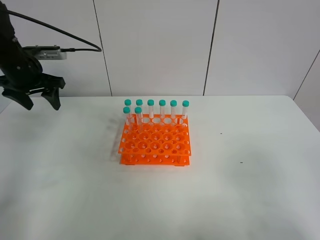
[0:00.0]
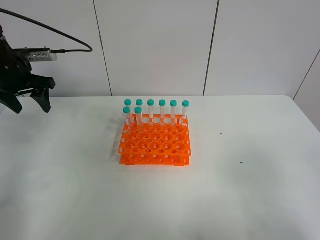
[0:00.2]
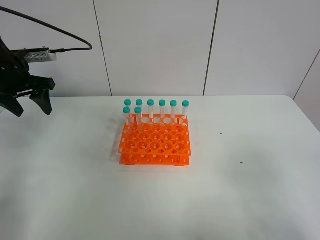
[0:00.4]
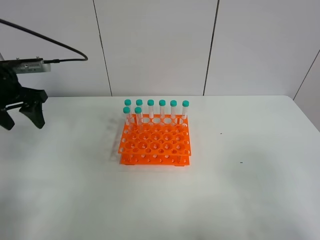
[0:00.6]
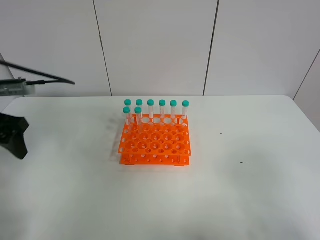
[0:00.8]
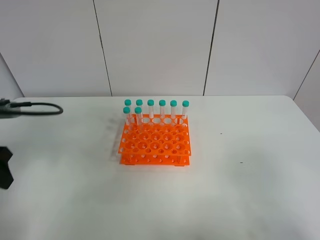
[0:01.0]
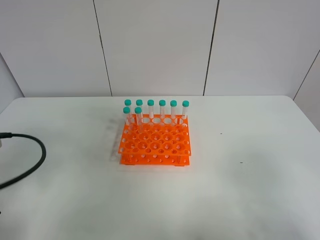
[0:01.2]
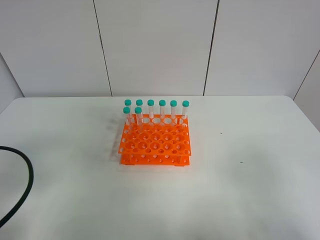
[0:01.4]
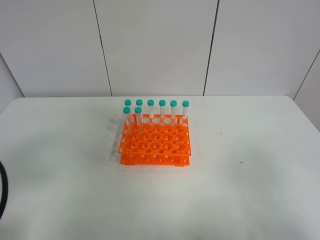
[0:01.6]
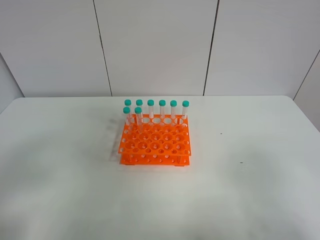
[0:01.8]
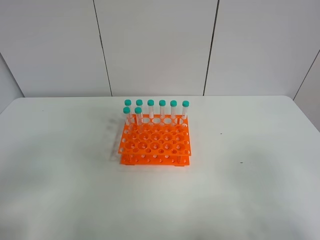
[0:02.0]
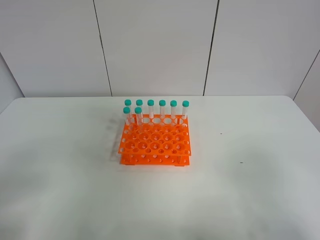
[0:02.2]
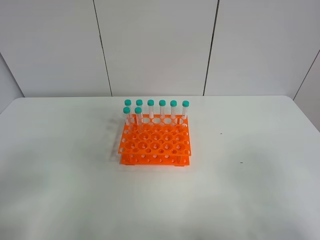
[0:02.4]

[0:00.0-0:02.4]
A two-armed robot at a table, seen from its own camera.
Task of the whole recording: Put the test tube on the table back onto the test tube rack.
0:00.0 to 0:01.2: The left gripper goes some 30 cm backward.
0:01.2 to 0:02.4: The left gripper goes about 10 cm backward.

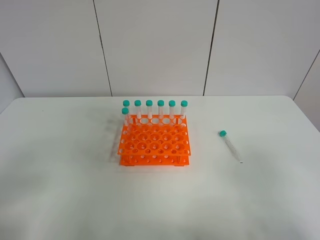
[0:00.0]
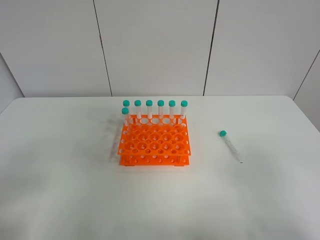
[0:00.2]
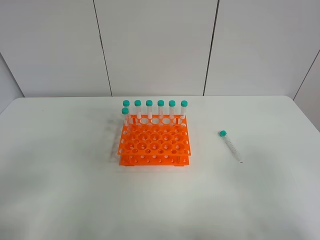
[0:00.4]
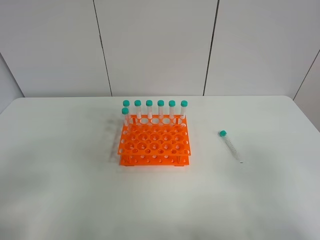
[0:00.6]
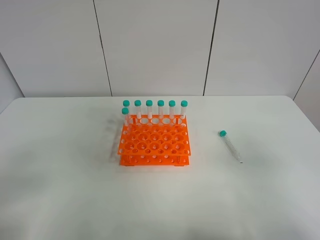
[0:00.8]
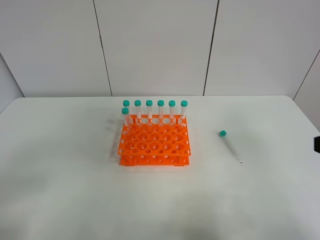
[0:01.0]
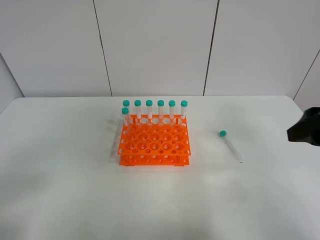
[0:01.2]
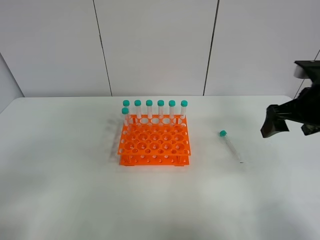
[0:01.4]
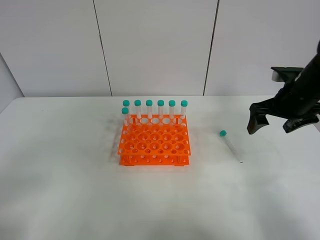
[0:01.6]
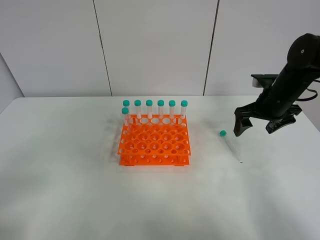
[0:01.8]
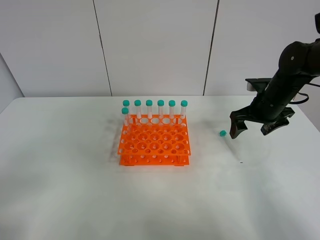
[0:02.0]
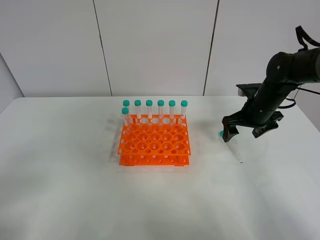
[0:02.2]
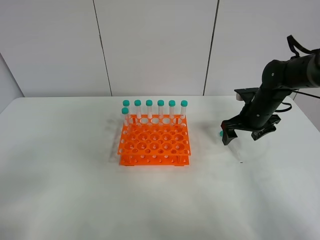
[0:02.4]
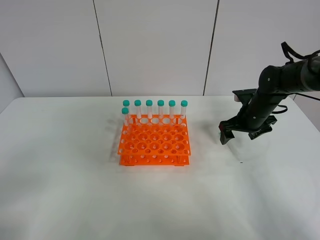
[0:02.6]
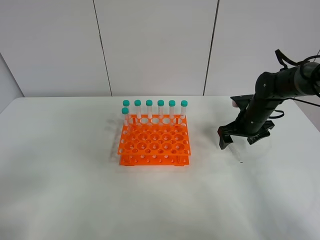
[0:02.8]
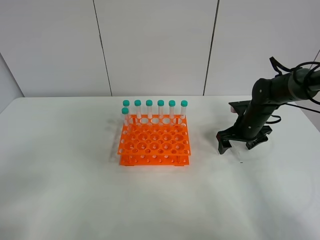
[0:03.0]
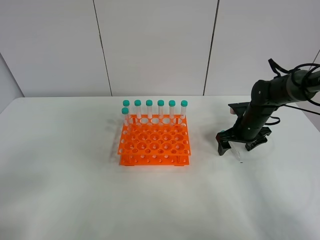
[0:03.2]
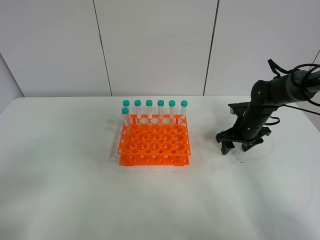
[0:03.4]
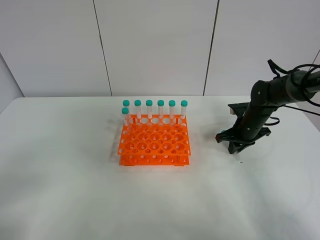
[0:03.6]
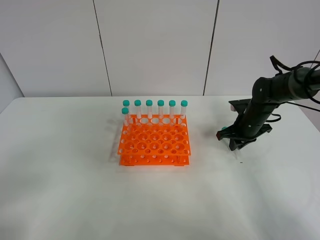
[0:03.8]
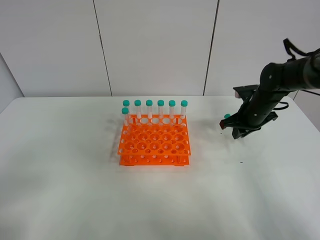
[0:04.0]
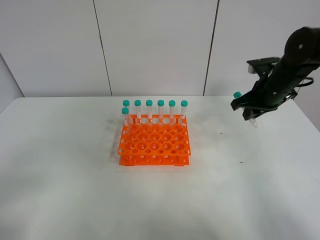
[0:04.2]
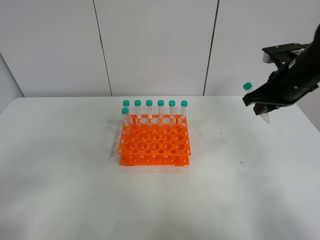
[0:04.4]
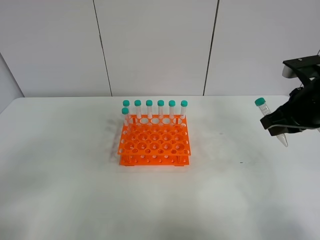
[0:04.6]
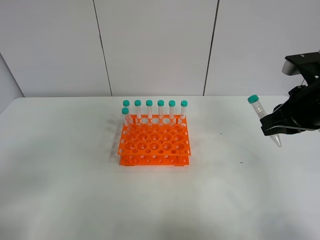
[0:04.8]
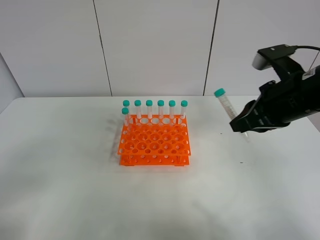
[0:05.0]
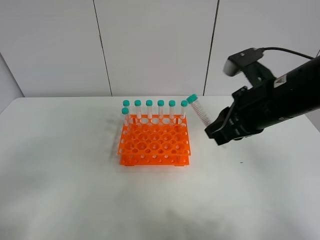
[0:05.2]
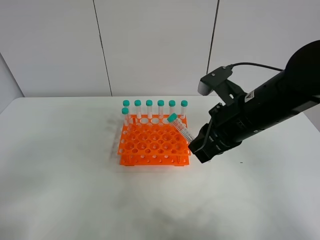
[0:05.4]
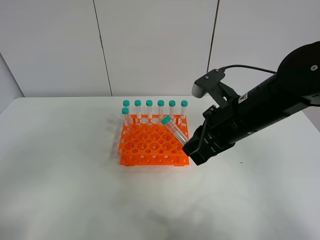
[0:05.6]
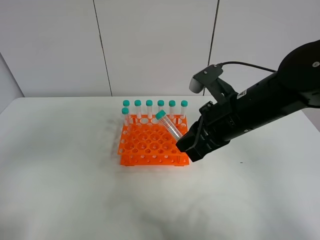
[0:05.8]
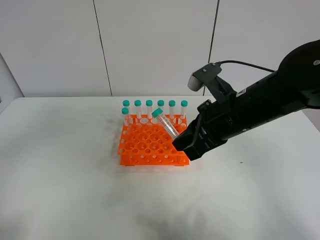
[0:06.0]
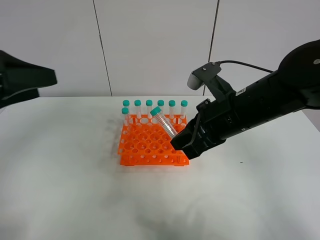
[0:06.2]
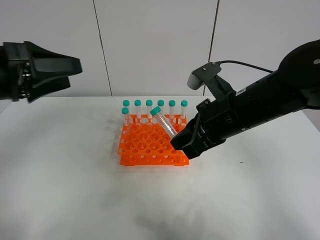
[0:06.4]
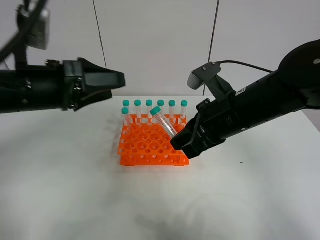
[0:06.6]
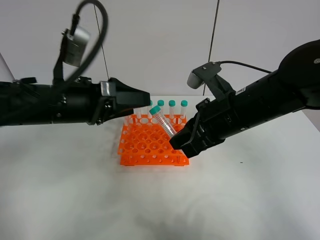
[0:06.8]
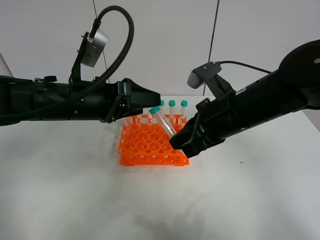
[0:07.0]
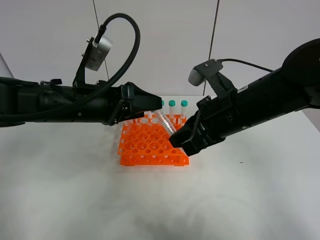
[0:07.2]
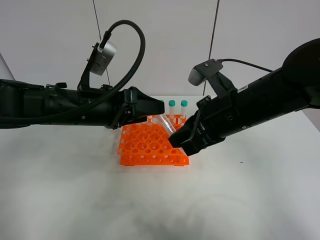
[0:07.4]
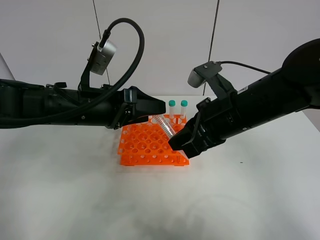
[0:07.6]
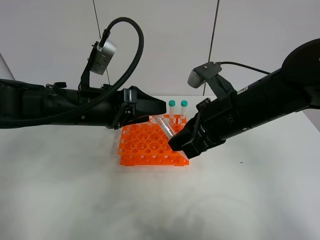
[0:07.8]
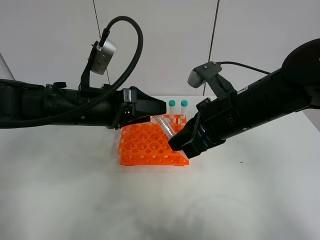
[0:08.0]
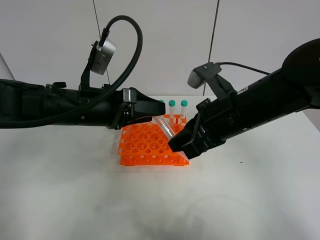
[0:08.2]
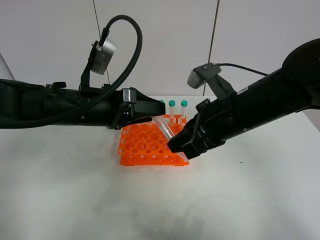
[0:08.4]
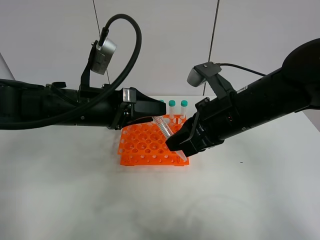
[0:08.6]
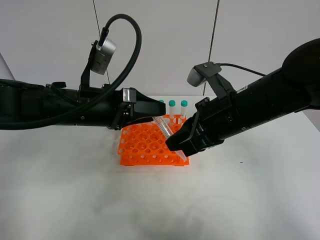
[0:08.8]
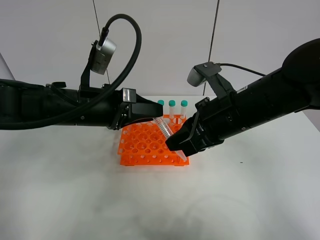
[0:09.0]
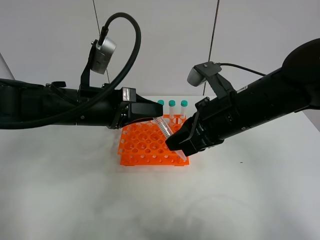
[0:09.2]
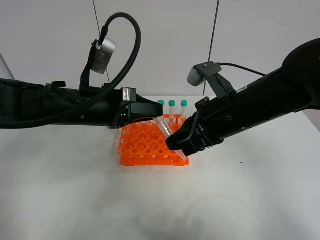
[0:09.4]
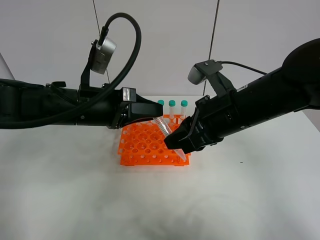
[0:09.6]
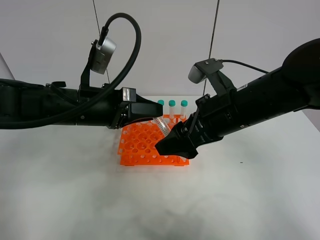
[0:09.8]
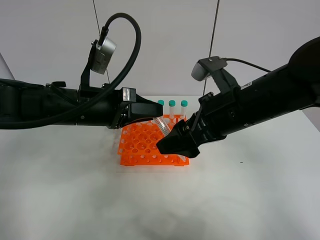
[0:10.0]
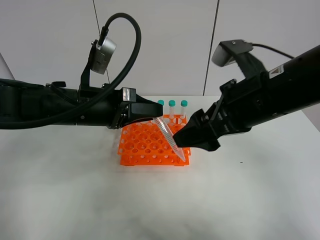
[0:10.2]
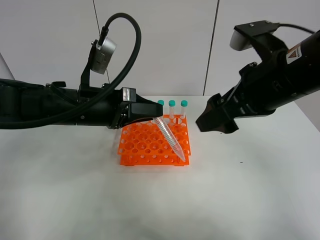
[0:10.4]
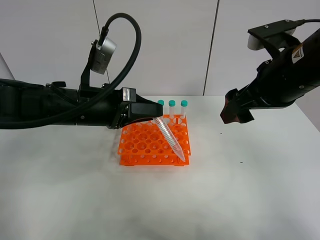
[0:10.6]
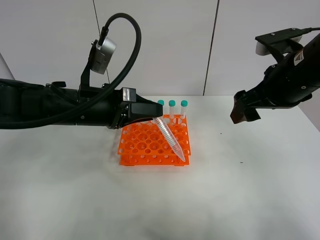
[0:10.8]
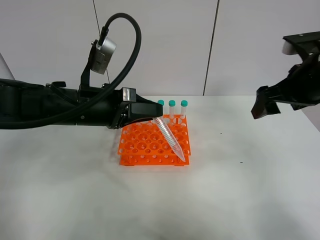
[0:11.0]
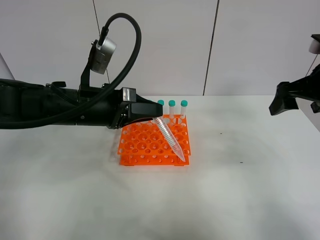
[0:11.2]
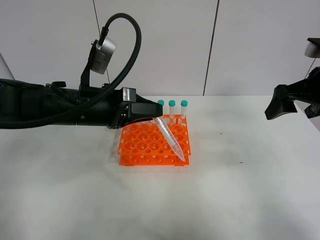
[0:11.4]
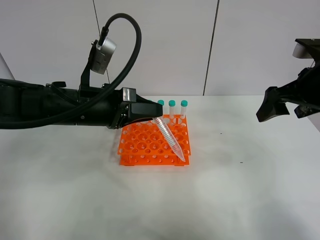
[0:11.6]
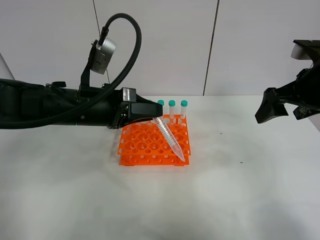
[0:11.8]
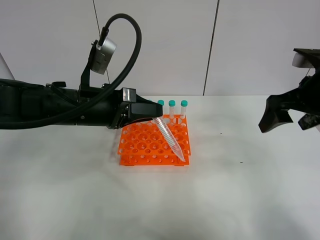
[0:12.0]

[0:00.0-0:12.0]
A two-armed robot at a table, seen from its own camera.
Task of the whole recording: Put the test tube on the table back onto the test tube rack.
Step, 0:00.0 to 0:03.6: Pick up the test tube with the right gripper.
Step, 0:03.8 to 0:09.6: Move the test tube from the right gripper to the left gripper.
0:00.0 to 0:01.6: The right gripper is displaced forward by approximately 35 cm.
0:01.6 to 0:03.0: The right gripper shifts some 15 cm downward and forward.
0:03.0 to 0:04.4: The right gripper heads upward and backward, covering about 20 cm, and closes.
0:04.4 to 0:06.0: The left gripper is displaced forward and upward by roughly 15 cm. The right gripper is displaced to the left and backward by approximately 15 cm.
0:06.0 to 0:07.6: The left gripper moves to the right, forward and downward, roughly 25 cm.
0:07.6 to 0:09.0: The left gripper closes.
0:09.0 to 0:10.4: The right gripper goes roughly 5 cm upward, and opens.
0:10.4 to 0:12.0: The right gripper travels to the right by roughly 10 cm.

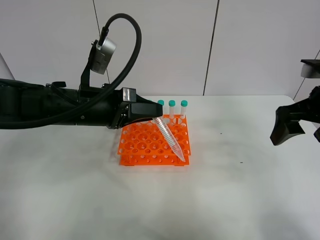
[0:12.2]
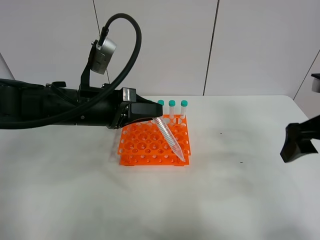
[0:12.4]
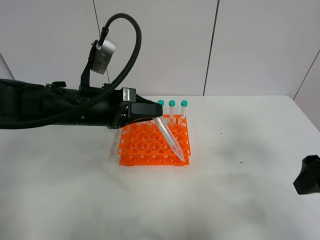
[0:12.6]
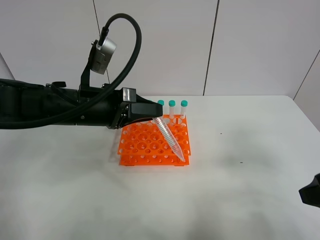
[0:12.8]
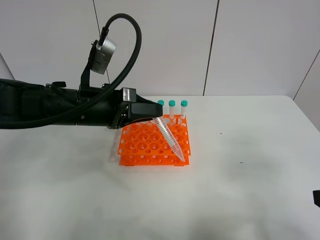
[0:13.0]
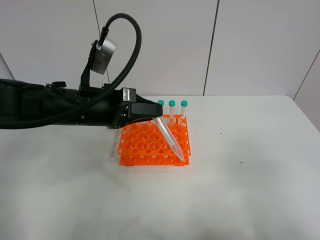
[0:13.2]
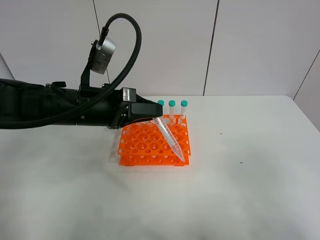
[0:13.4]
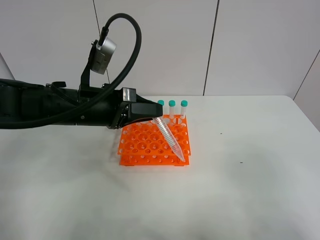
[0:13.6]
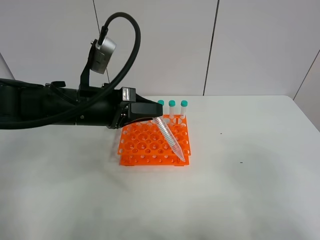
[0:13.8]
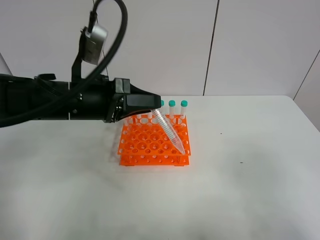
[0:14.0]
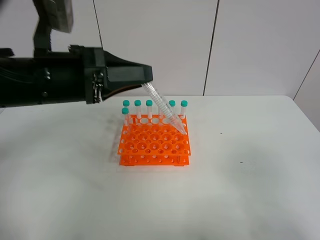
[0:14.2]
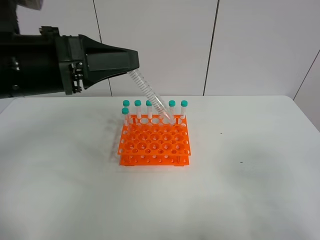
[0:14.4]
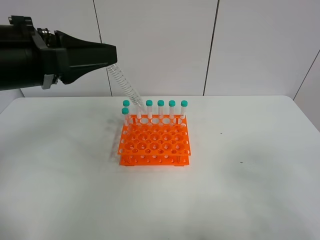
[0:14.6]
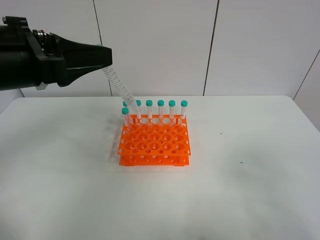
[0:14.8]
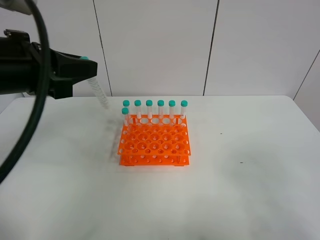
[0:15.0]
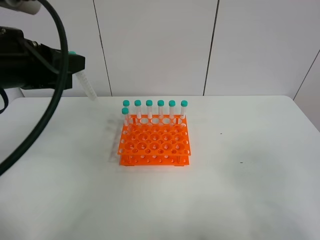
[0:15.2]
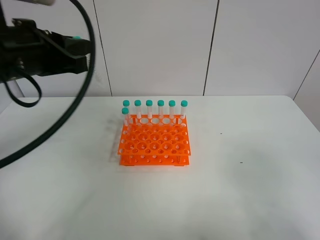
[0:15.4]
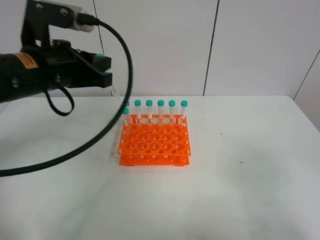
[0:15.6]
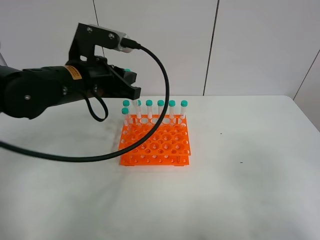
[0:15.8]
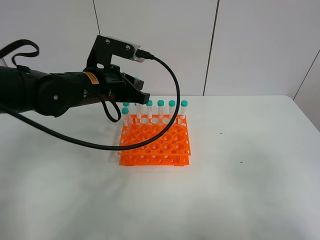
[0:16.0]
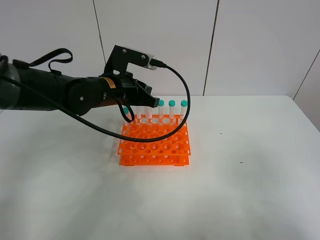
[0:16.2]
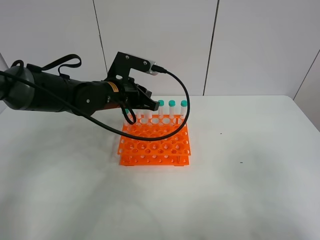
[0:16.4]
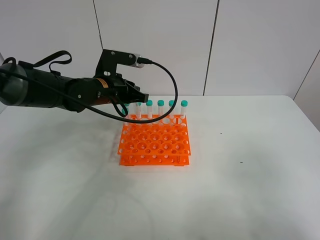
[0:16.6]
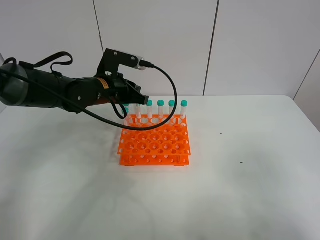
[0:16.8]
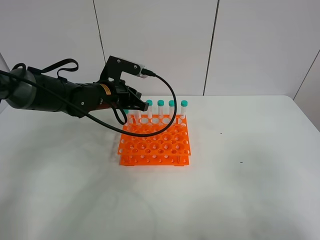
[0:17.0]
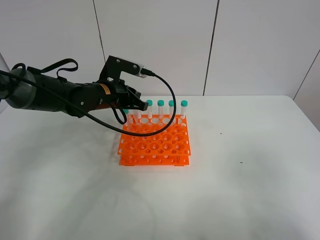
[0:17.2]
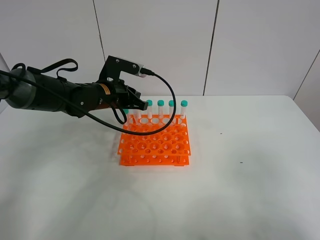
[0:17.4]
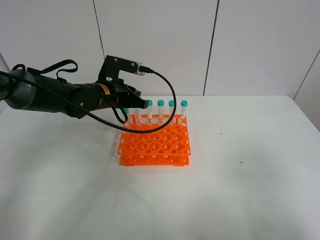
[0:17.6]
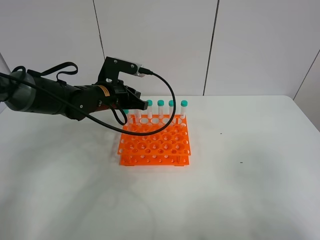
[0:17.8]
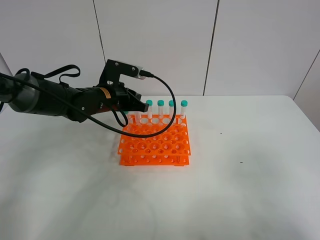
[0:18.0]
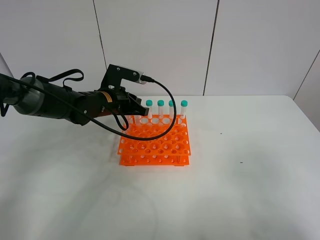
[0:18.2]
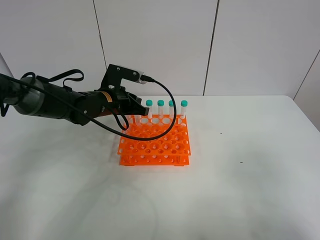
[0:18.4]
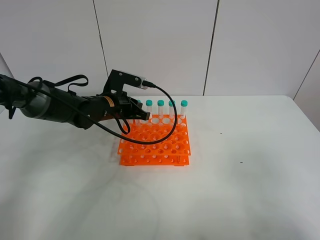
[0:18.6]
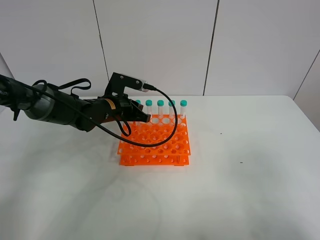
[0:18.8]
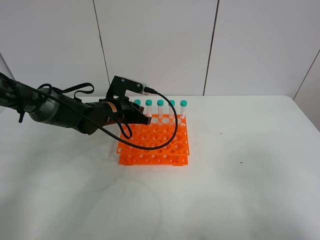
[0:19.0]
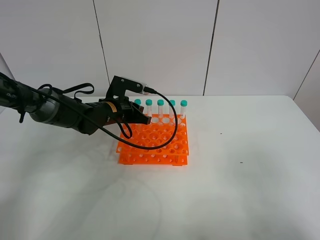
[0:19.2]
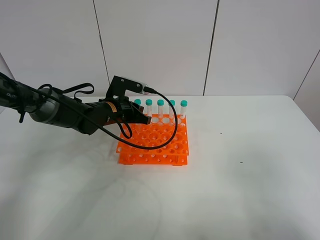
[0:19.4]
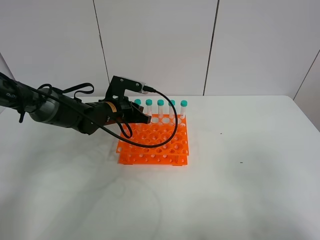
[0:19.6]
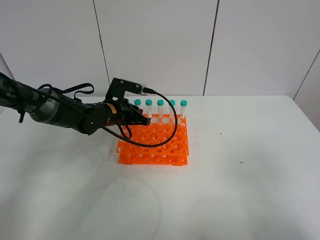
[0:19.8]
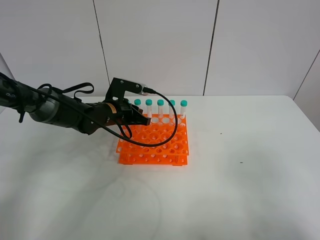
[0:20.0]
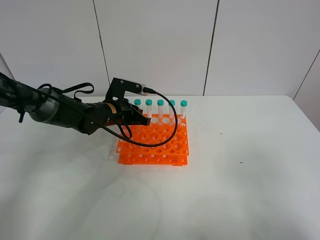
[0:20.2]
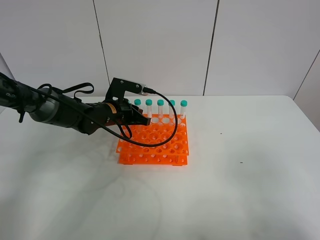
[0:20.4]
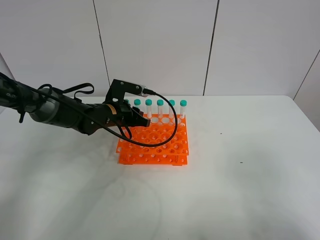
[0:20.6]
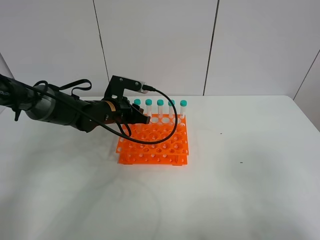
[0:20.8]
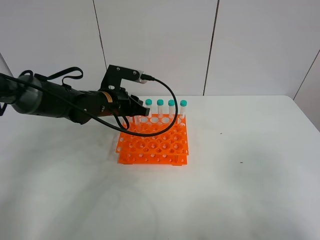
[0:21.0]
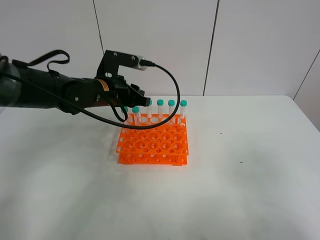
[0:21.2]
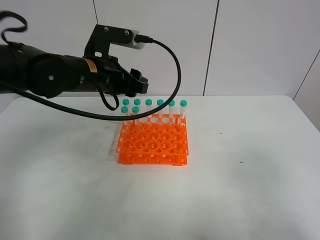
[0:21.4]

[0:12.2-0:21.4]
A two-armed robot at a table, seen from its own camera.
Task of the whole recording: Put the test tube on the table back onto the test tube rack.
Step, 0:12.2 to 0:20.8: Place the test tube on the test tube rack with the left gripper.
0:12.2 to 0:13.8: The right gripper heads backward, covering some 25 cm.
0:13.8 to 0:15.2: The left gripper shifts some 15 cm upward, to the left and backward.
0:15.2 to 0:16.8: The left gripper shifts roughly 25 cm forward, downward and to the right.
0:16.8 to 0:18.4: The grippers stay close to where they were, moving slightly.
0:18.4 to 0:19.8: The grippers stay close to where they were, moving slightly.
0:19.8 to 0:21.4: The left gripper travels upward and backward by some 15 cm, and opens its fingers.
